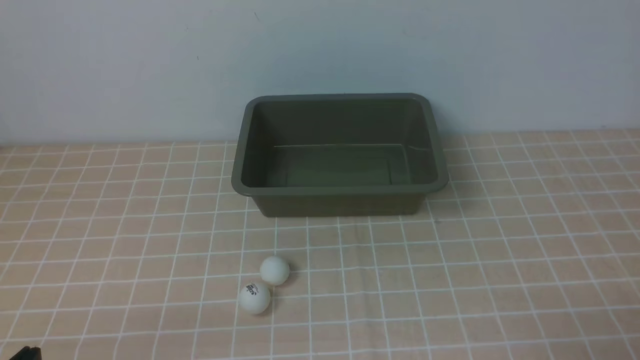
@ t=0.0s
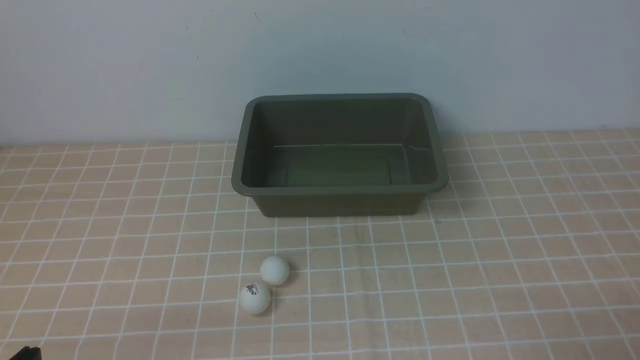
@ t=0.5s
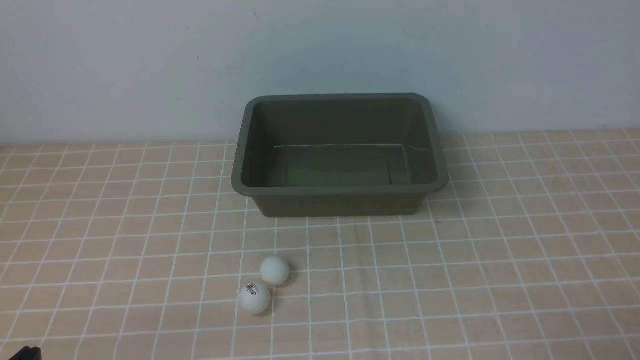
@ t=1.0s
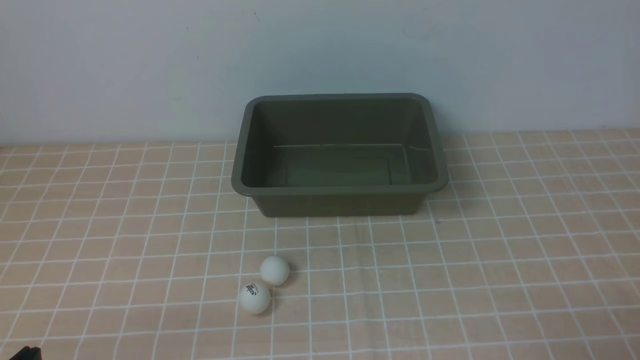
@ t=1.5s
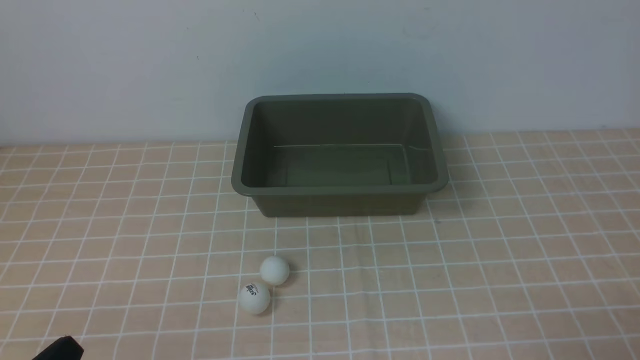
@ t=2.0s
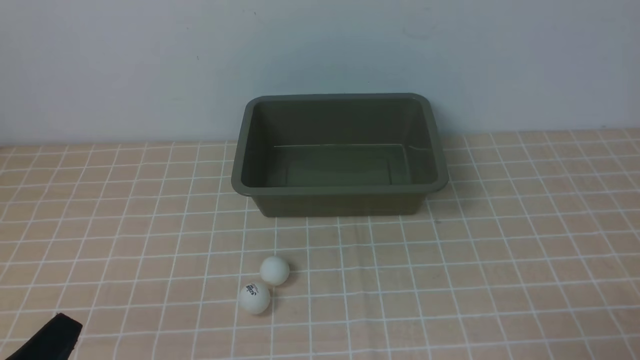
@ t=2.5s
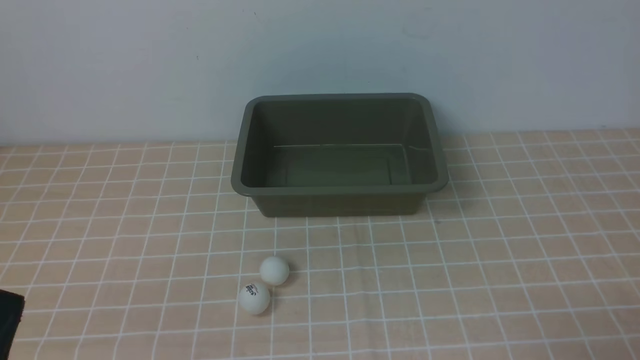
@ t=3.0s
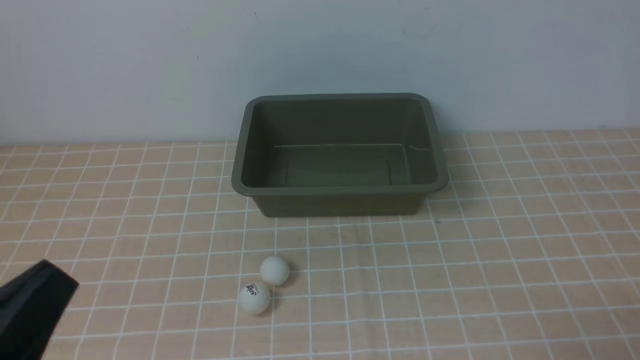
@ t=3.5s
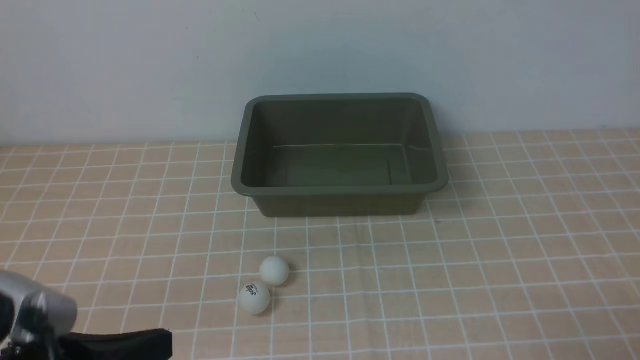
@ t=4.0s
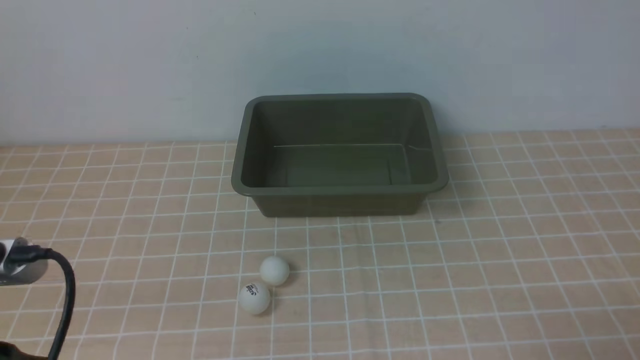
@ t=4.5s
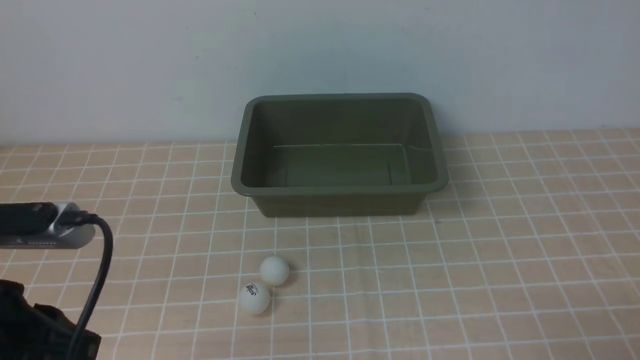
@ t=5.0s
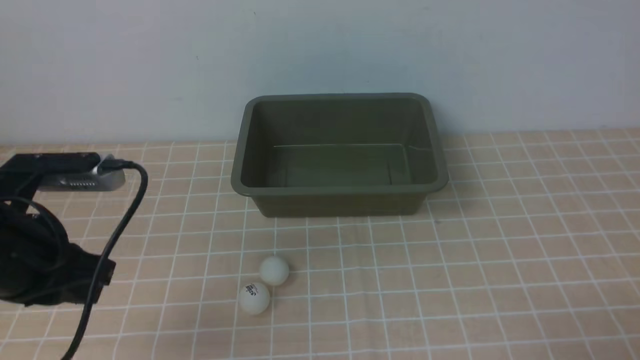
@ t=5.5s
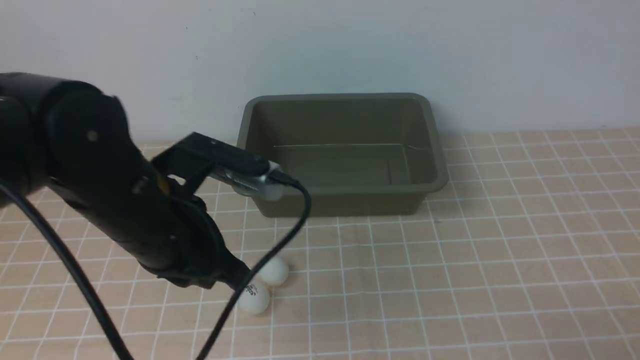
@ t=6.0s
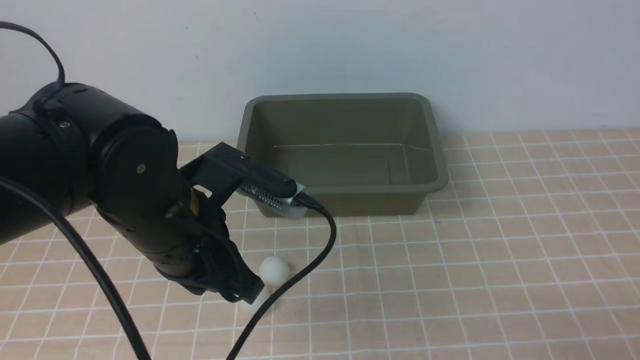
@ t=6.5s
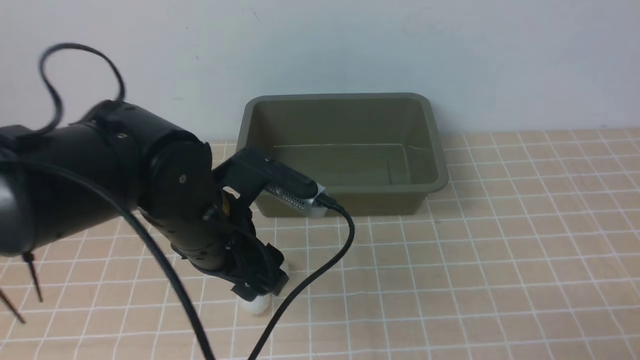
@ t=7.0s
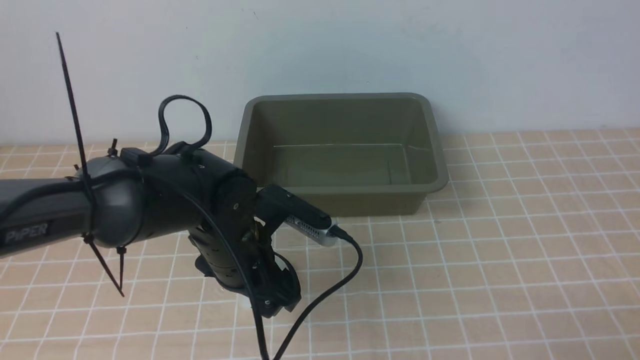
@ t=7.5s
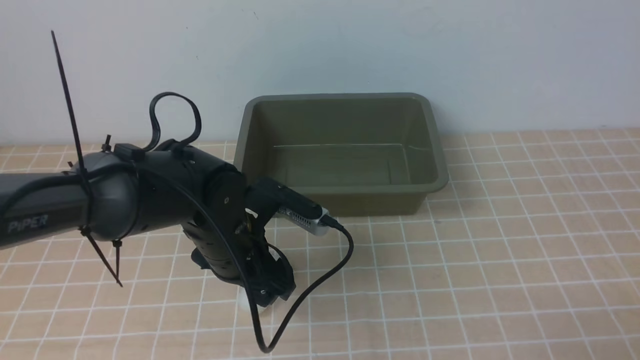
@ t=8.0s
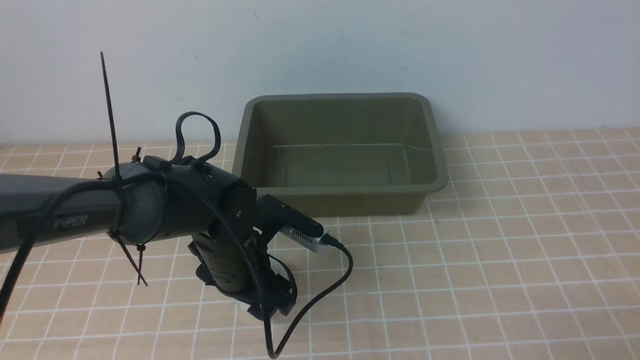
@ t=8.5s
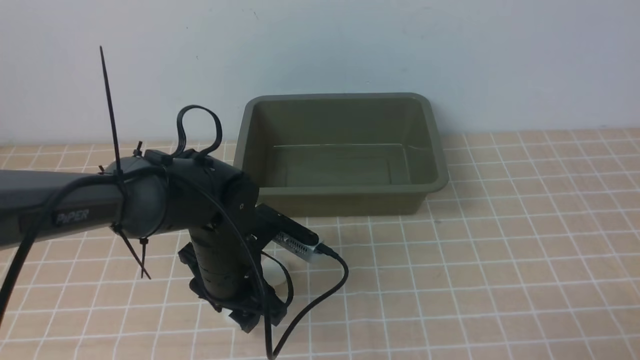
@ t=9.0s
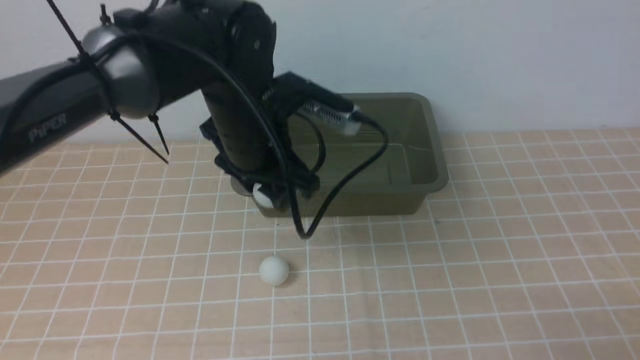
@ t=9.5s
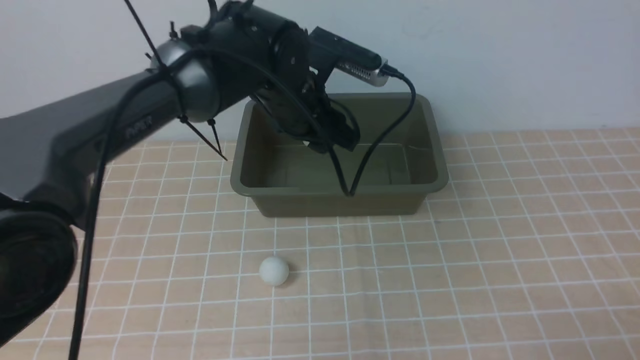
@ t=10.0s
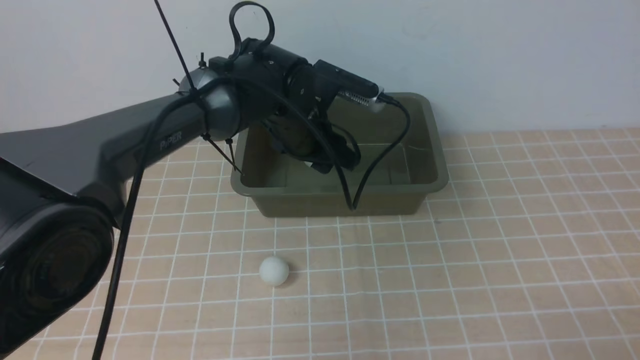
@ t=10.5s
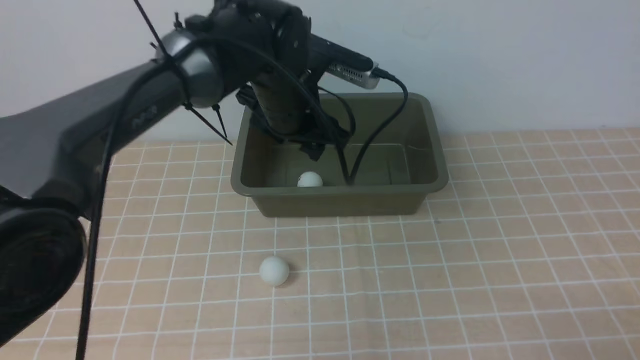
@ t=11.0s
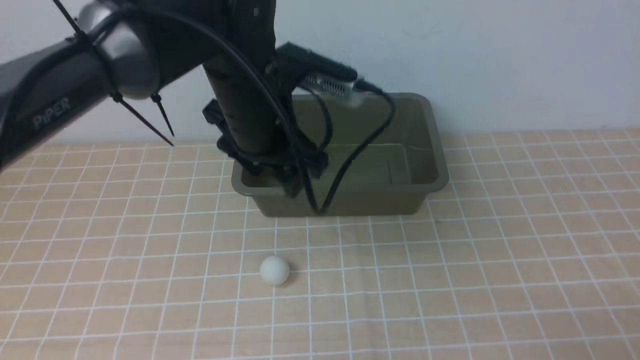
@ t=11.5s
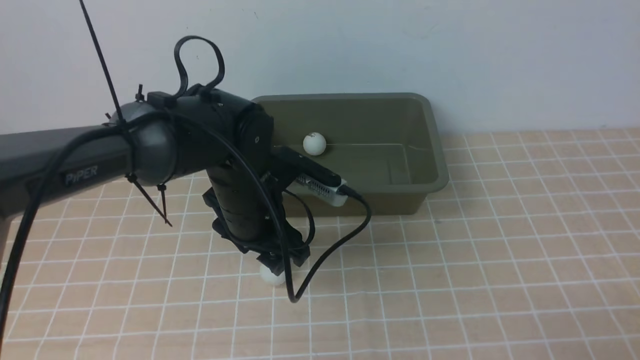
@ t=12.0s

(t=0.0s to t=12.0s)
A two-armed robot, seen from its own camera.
Step, t=0.0s - t=9.5s: use the left arm to clamp the table tennis ball closest to it.
Step, t=10.0s - t=10.5s: use the left arm to put the table tennis ball into the box.
t=2.0s - t=4.0s: The left gripper travels upward by approximately 10 cm.
t=4.0s - t=6.0s: The left gripper moves forward, approximately 15 cm.
t=6.0s - t=8.0s: The left gripper shifts roughly 10 cm downward and forward, and opens up.
t=8.0s - t=10.0s: The left gripper goes approximately 15 cm forward, upward and to the right, and closes its fingers.
t=10.0s - t=12.0s: The left gripper moves backward and downward, approximately 10 cm.

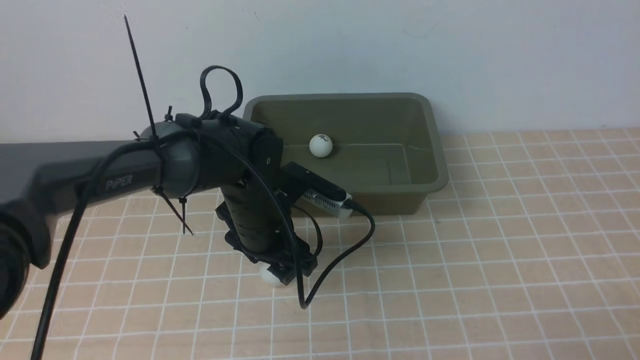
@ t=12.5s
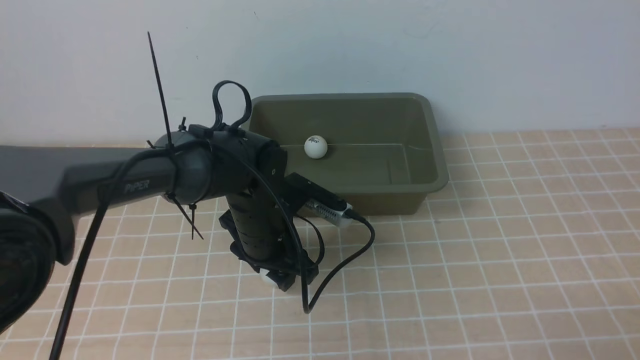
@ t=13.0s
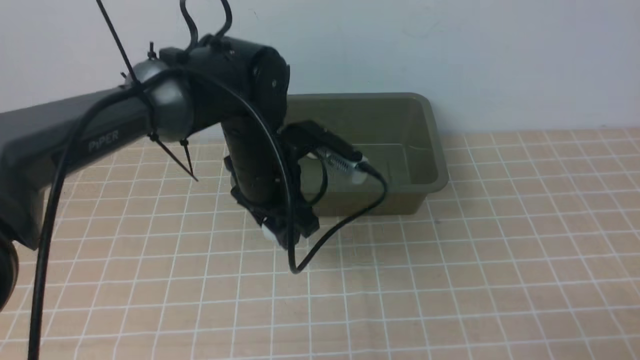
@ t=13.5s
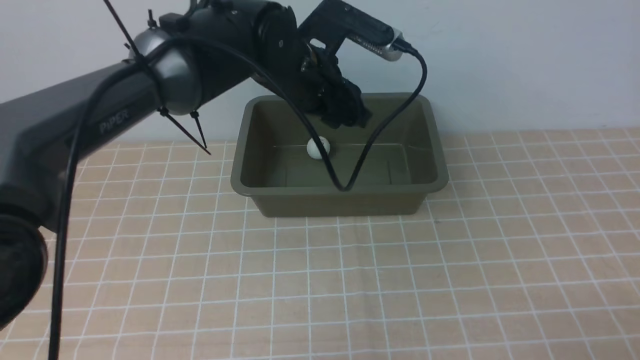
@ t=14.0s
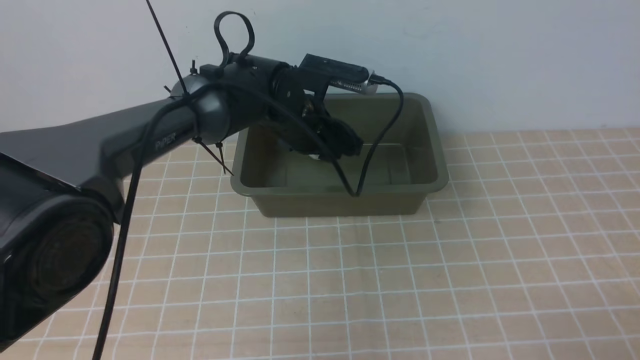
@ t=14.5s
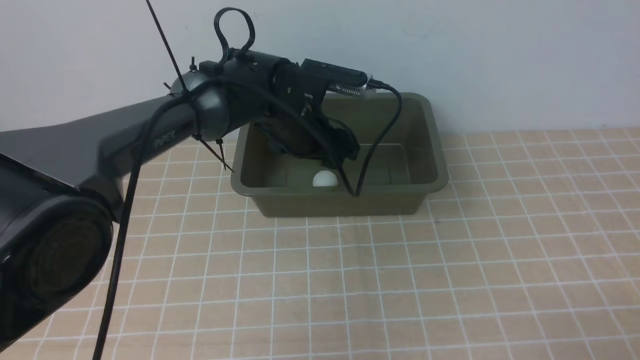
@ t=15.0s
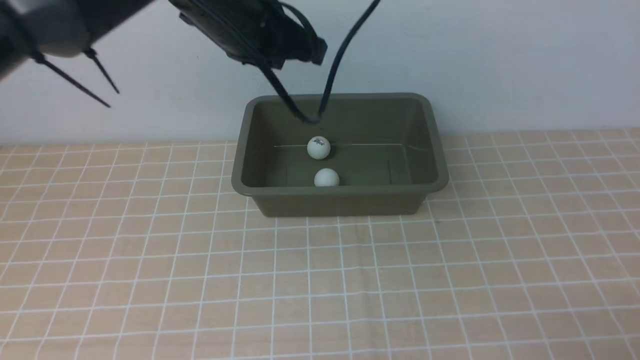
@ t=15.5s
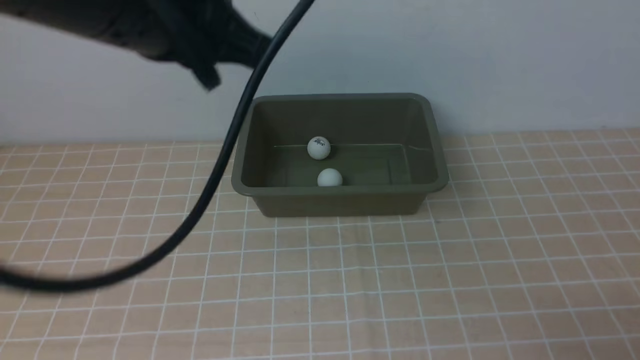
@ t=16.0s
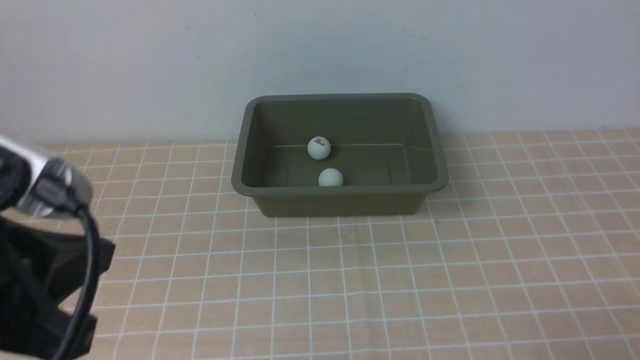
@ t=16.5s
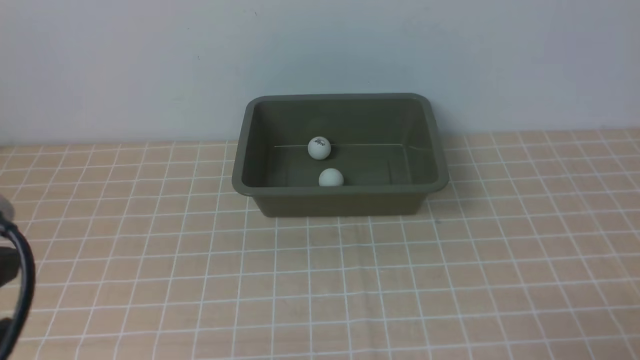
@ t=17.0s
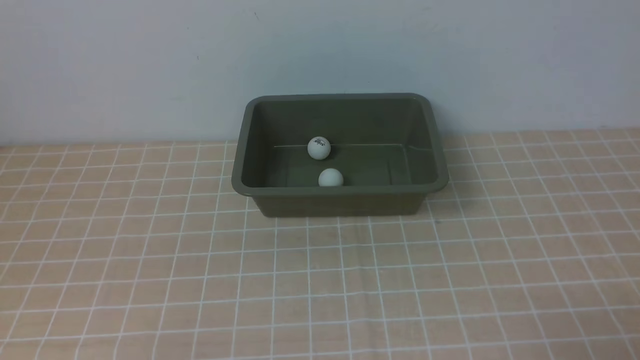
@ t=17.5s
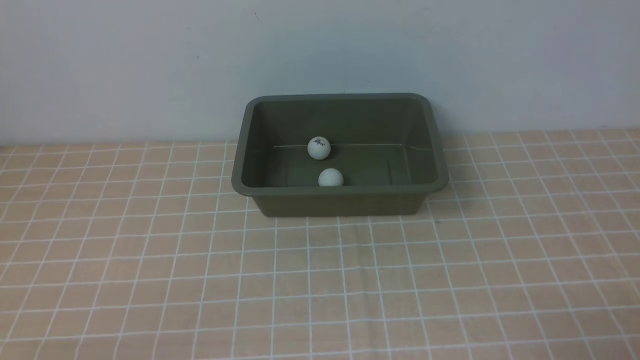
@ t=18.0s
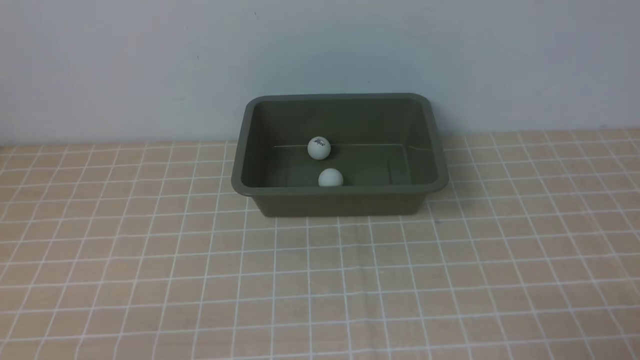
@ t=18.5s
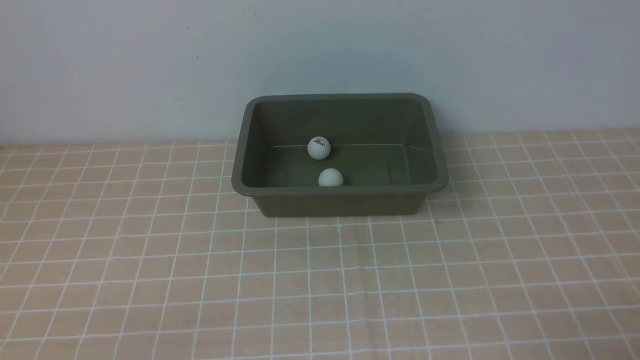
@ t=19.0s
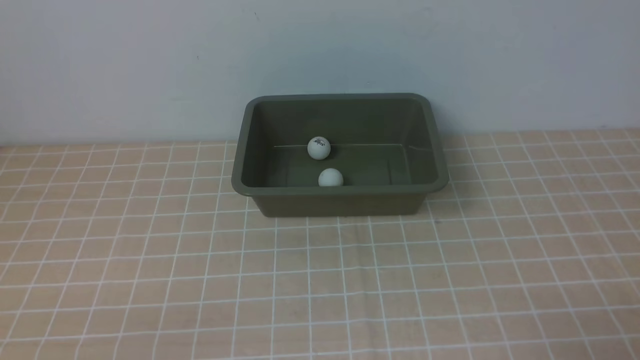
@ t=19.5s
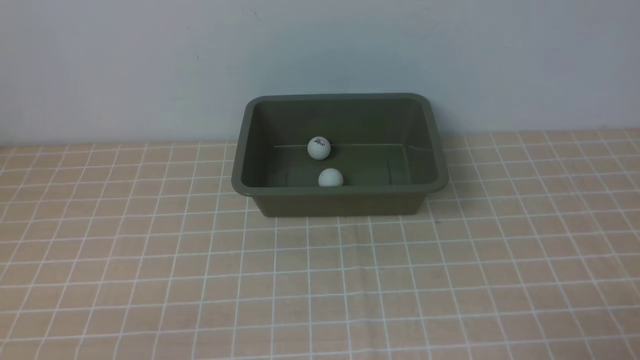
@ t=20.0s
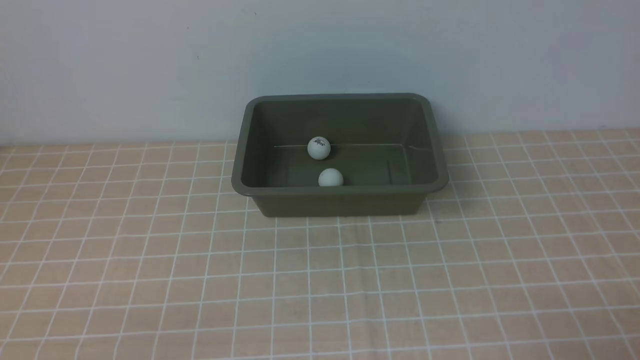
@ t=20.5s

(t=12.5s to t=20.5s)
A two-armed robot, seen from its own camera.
Step, t=13.5s - t=14.5s: use the left arm to put the table tennis ball into the box.
t=12.5s - t=14.5s: The left gripper shifts roughly 10 cm forward.
t=14.5s - t=16.5s: The left gripper is displaced backward, to the left and upward by roughly 40 cm, and closes.
t=16.5s - t=18.5s: The left gripper moves downward, approximately 20 cm.
t=18.5s - t=20.5s: Neither gripper changes place.
